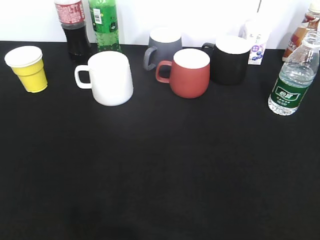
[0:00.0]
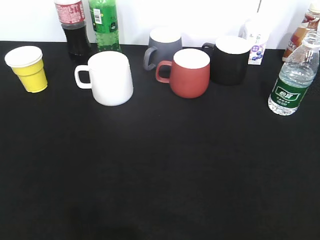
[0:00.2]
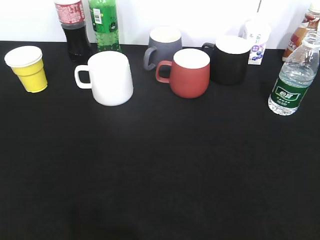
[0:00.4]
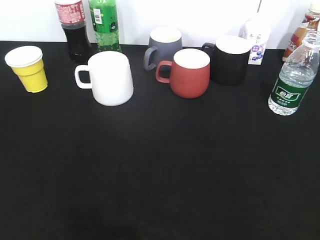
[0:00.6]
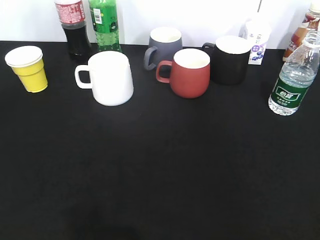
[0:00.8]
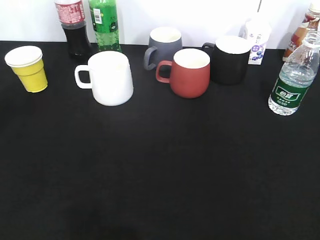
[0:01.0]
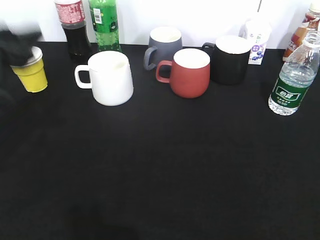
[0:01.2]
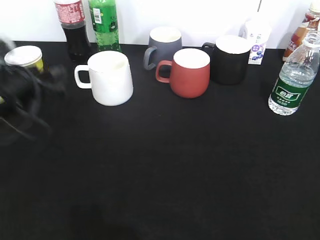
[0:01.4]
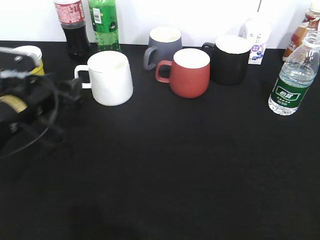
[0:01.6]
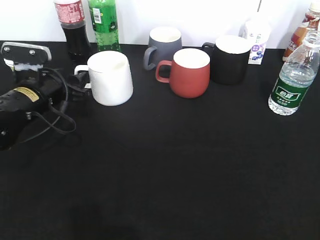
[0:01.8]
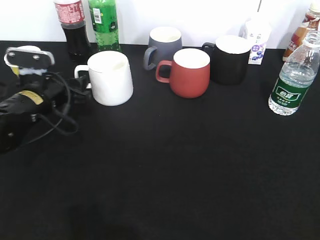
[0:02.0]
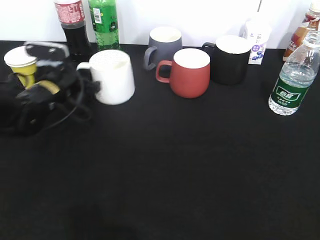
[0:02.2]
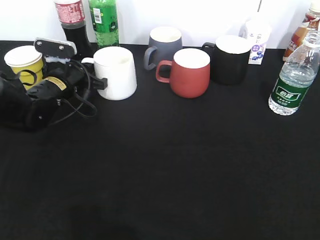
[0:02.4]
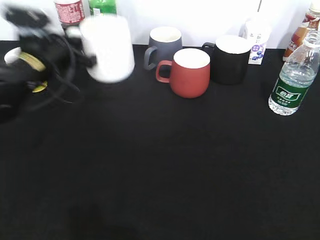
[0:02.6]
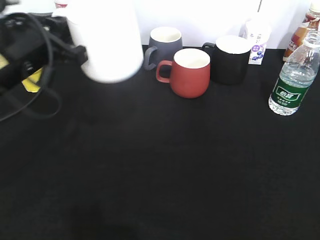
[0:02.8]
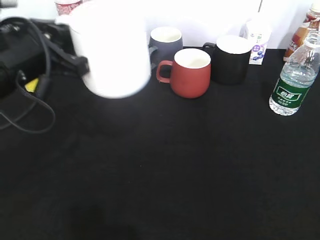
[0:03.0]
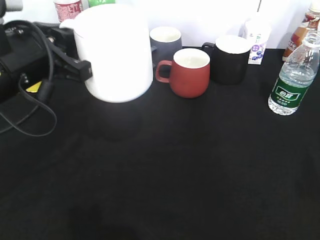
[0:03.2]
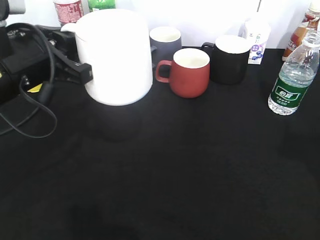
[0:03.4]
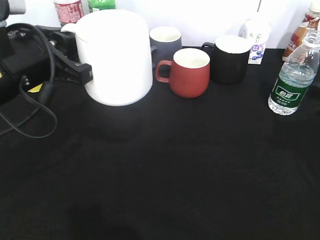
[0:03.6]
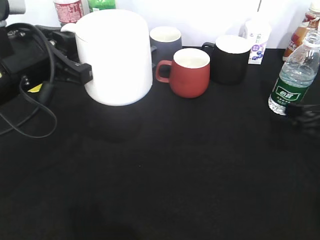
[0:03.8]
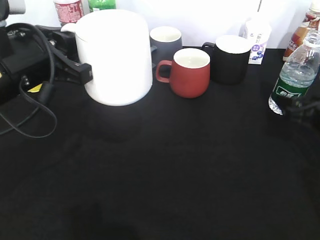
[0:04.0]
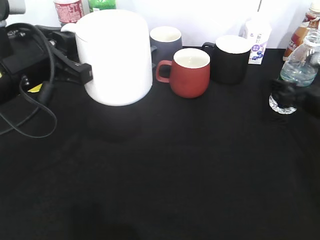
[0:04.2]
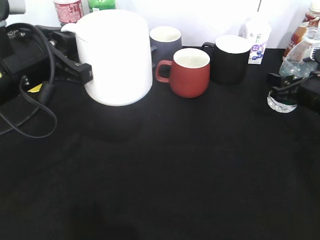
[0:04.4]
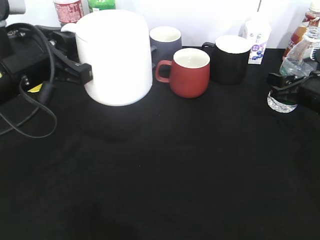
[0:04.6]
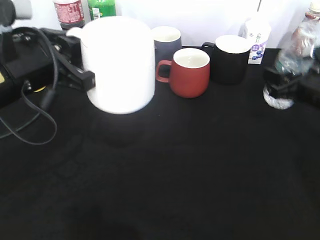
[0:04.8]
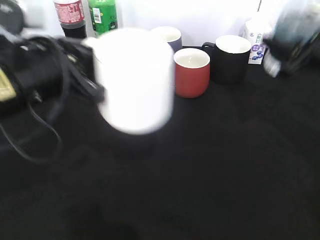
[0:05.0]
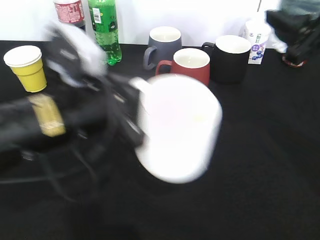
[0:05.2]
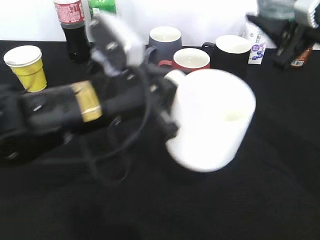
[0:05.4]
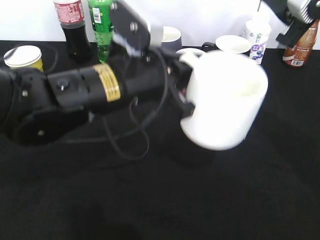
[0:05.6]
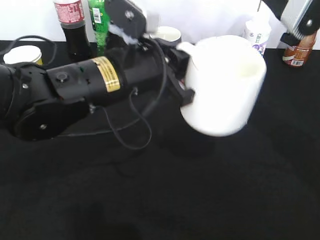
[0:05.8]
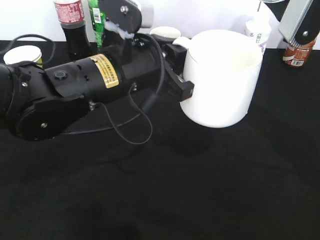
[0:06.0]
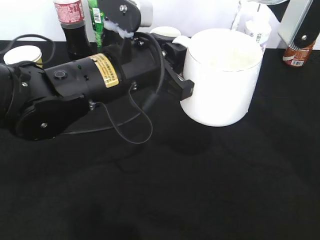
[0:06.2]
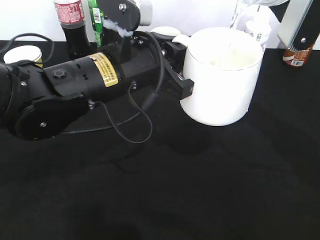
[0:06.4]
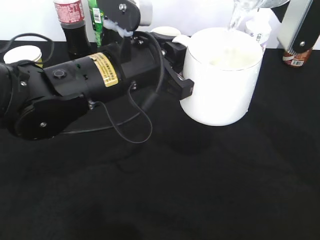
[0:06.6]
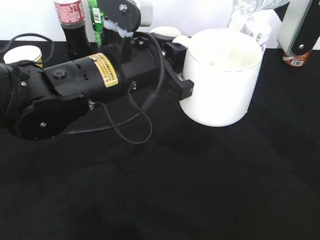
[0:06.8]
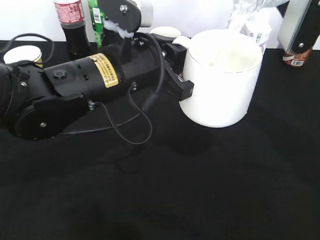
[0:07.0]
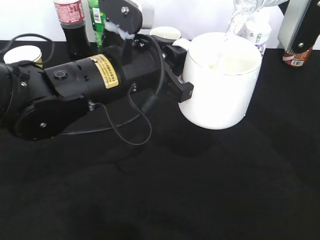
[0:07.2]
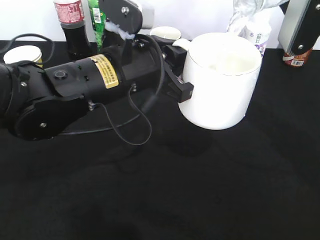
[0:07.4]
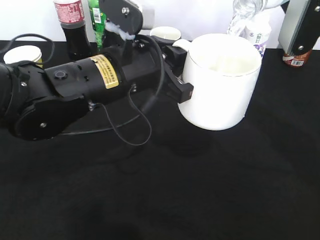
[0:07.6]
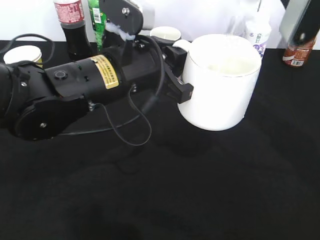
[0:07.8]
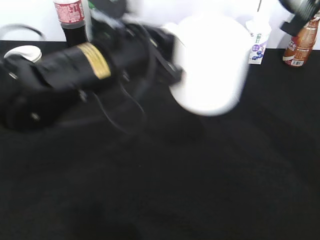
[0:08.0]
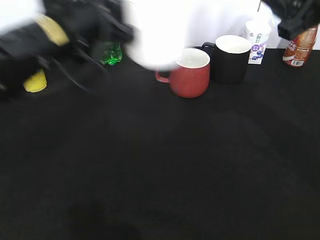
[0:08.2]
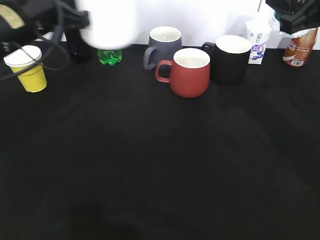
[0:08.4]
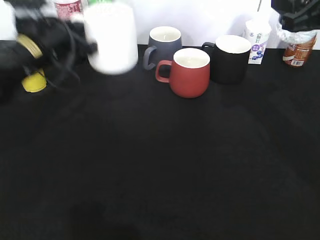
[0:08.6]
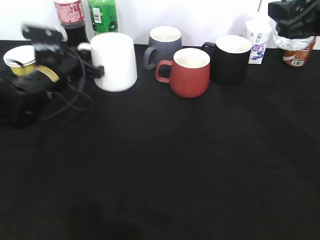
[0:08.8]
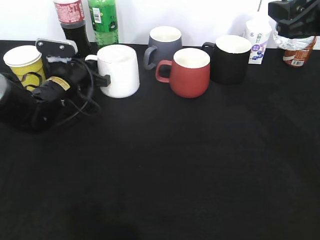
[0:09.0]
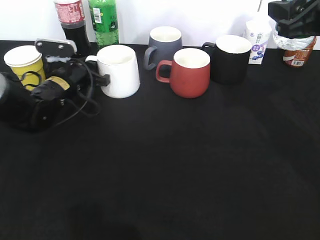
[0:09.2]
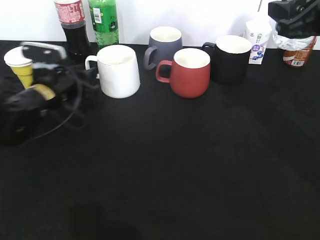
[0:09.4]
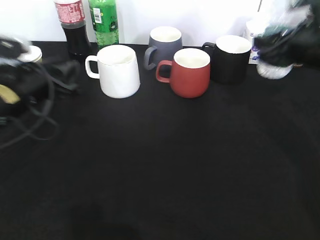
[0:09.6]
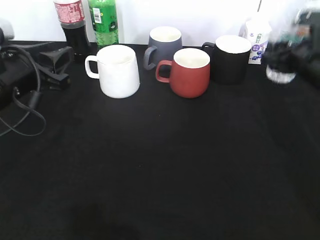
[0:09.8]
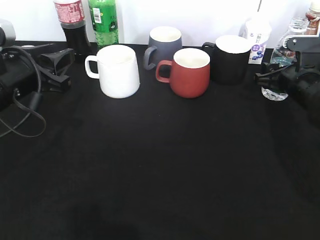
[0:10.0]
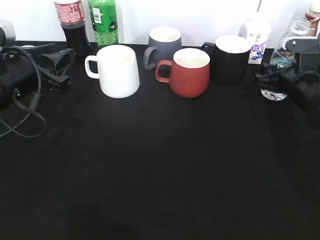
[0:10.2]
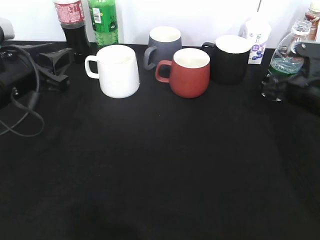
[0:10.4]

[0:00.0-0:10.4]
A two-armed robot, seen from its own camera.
Step, 0:00.0 to 0:02.2: Grasp the white cup with left gripper.
Step, 0:02.6 to 0:03.0: Lift the white cup with left gripper.
Step, 0:03.2 to 0:04.4: Grasp the bottle with water with right gripper.
Step, 0:04.8 to 0:08.0: Pour the water from bottle to cup with right gripper.
Step, 0:08.2 to 0:09.4: Place the white cup on the table with left gripper.
0:00.0 to 0:01.4: The left gripper moves forward, roughly 30 cm.
0:01.4 to 0:03.0: The left gripper goes approximately 10 cm upward and to the right, moves about 10 cm forward and comes back, and closes.
0:03.0 to 0:04.4: The right gripper is displaced forward and downward by approximately 35 cm, and closes its fingers.
0:04.4 to 0:06.0: The right gripper shifts roughly 20 cm upward and to the left; the left gripper shifts approximately 10 cm to the right.
0:06.0 to 0:07.4: There are only small adjustments of the grippers.
0:07.4 to 0:09.0: The left gripper shifts about 25 cm forward, to the left and downward.
0:09.0 to 0:10.4: The right gripper heads downward, covering about 15 cm, and opens up, while the left gripper heads backward and upward, covering some 15 cm, and opens.

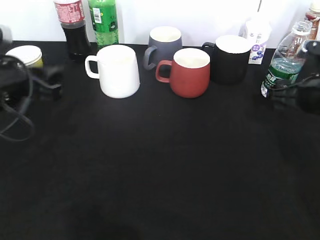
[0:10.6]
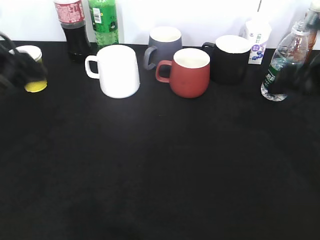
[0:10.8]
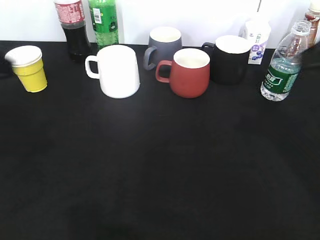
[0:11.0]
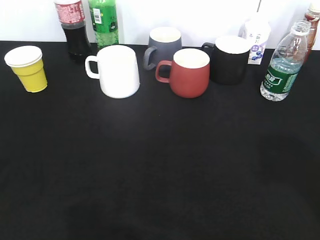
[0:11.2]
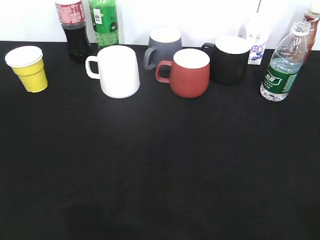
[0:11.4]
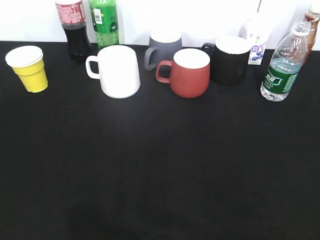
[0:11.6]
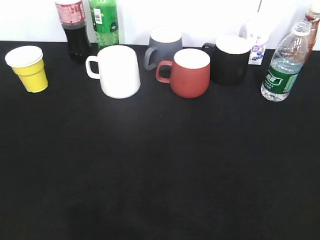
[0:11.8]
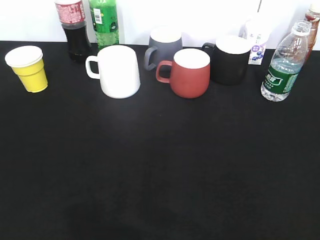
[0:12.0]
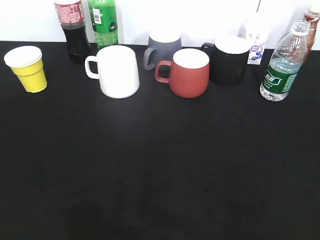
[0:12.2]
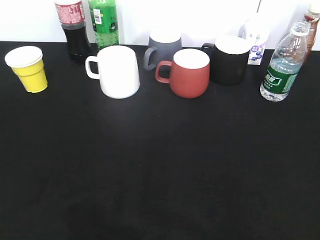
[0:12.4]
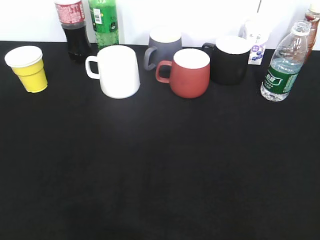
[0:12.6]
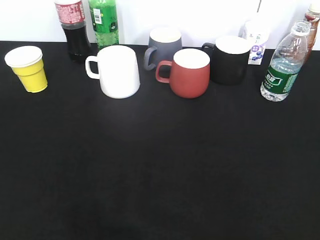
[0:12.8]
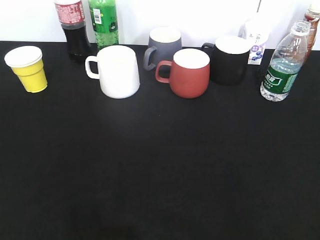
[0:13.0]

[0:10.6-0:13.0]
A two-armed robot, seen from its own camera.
0:10.6 to 0:11.8: Both grippers move backward, about 30 cm. The right gripper closes up.
